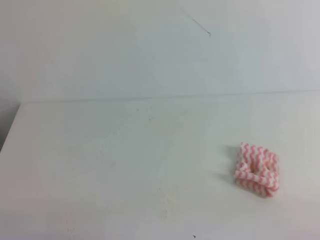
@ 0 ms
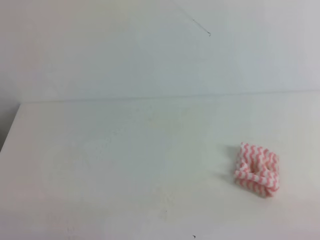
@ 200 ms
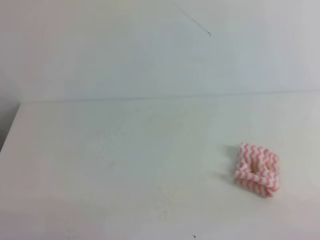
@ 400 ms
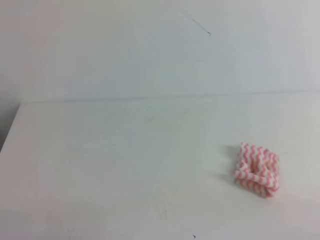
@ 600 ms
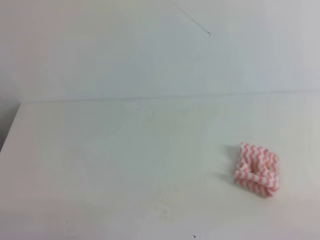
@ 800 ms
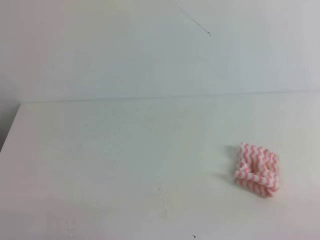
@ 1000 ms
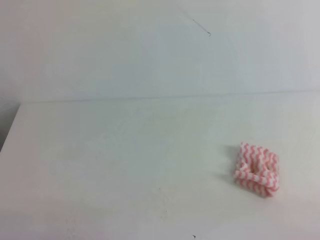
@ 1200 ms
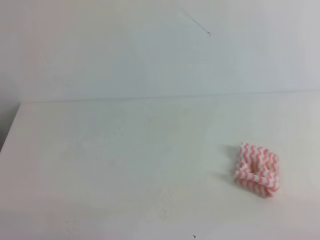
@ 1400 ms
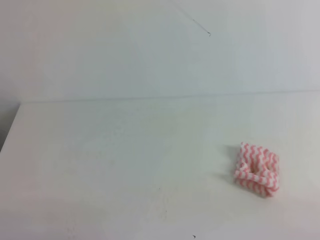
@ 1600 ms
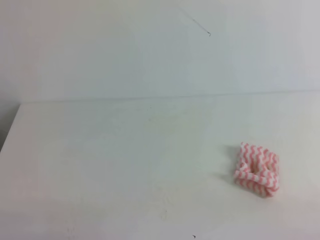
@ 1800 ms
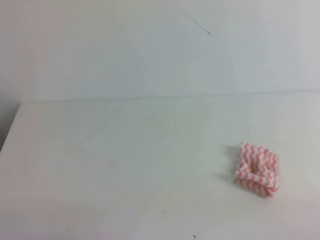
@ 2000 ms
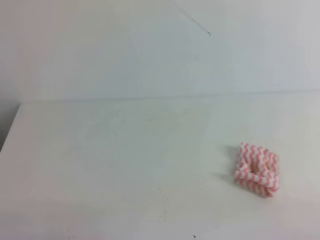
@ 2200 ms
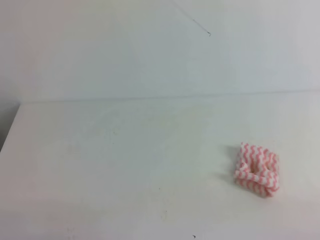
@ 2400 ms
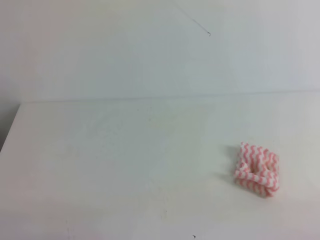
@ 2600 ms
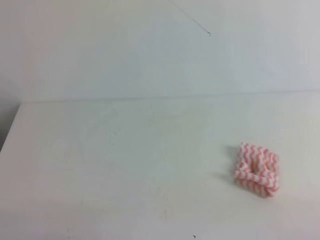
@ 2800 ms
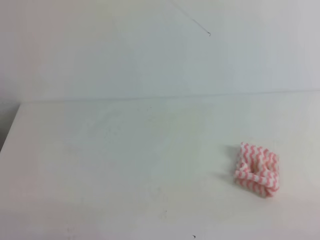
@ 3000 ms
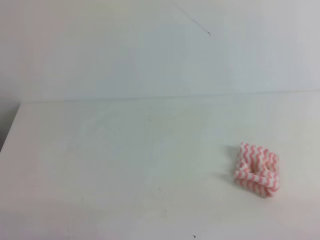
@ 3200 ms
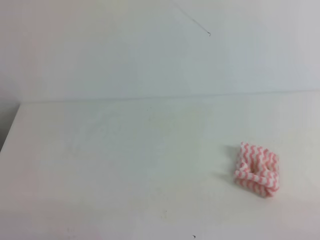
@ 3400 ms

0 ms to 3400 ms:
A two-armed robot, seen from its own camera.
0 ms to 3400 ms: Neither gripper changes place.
